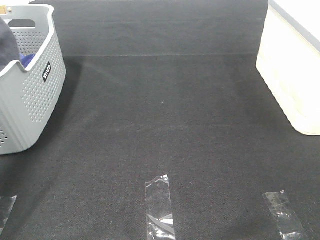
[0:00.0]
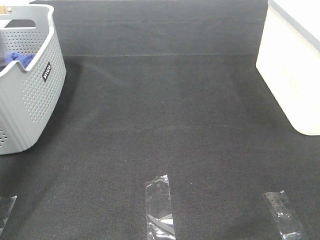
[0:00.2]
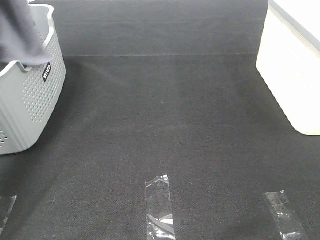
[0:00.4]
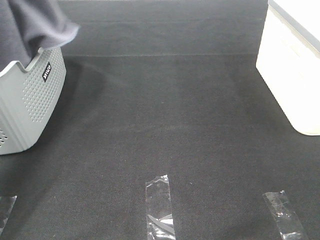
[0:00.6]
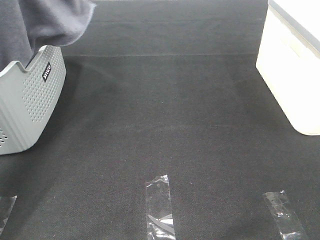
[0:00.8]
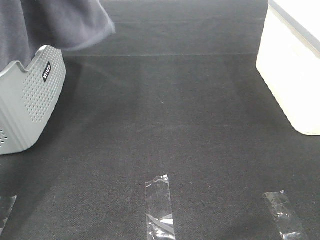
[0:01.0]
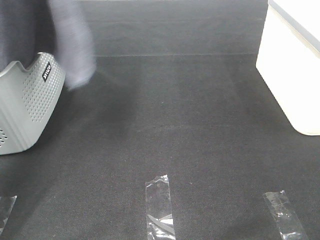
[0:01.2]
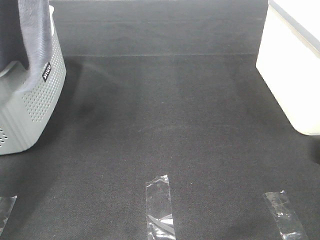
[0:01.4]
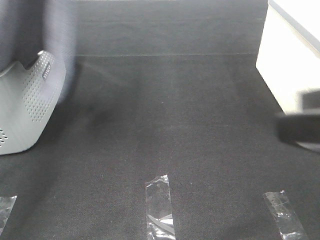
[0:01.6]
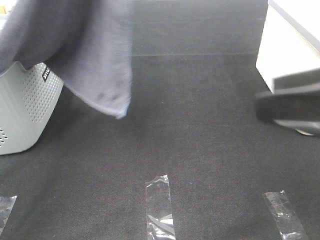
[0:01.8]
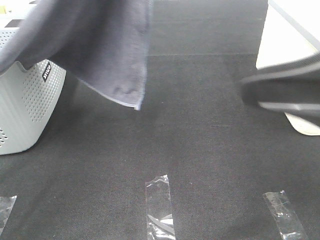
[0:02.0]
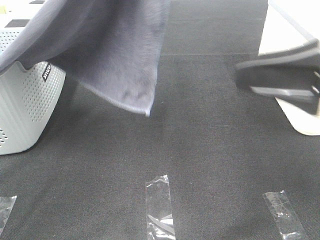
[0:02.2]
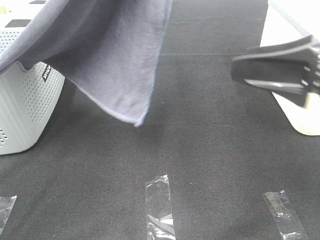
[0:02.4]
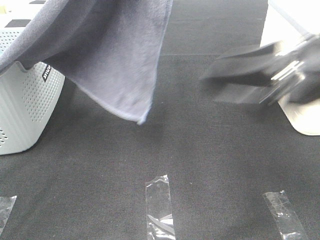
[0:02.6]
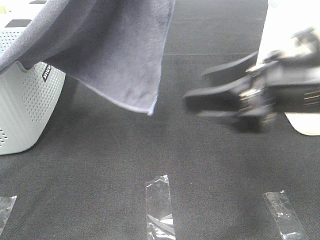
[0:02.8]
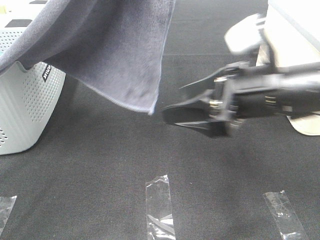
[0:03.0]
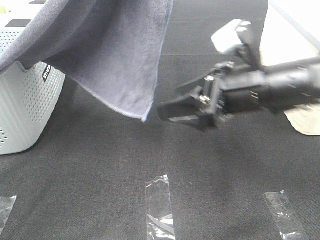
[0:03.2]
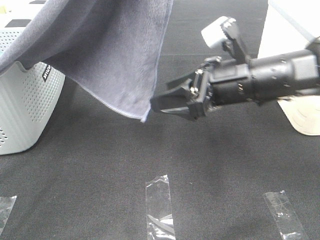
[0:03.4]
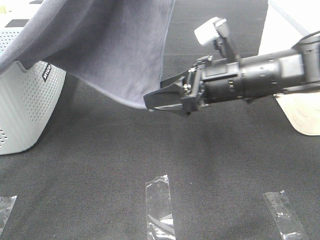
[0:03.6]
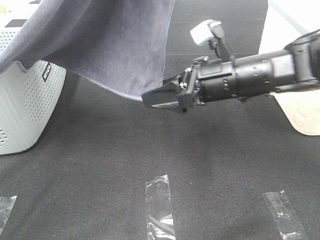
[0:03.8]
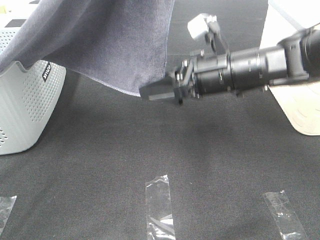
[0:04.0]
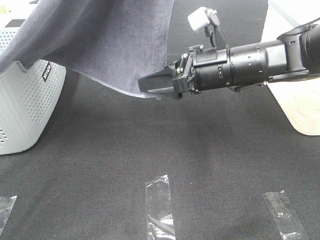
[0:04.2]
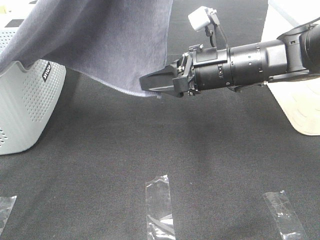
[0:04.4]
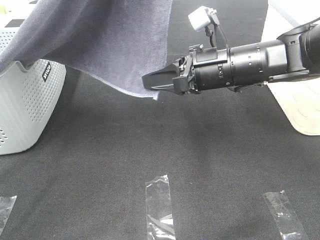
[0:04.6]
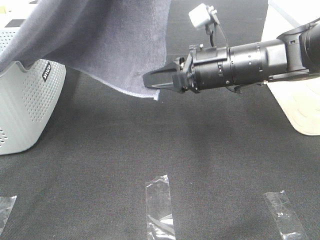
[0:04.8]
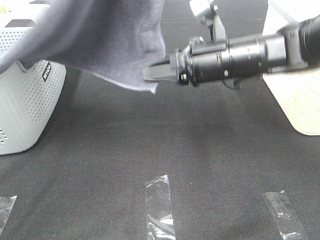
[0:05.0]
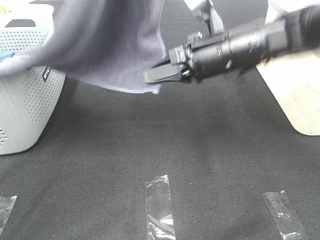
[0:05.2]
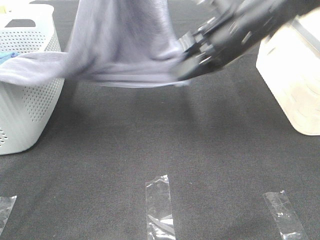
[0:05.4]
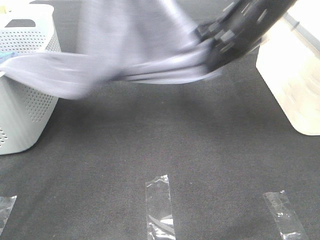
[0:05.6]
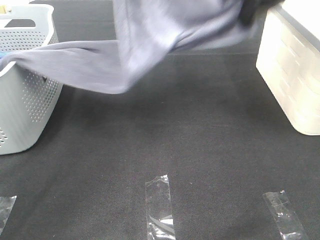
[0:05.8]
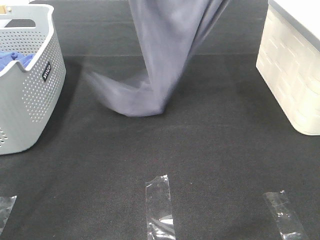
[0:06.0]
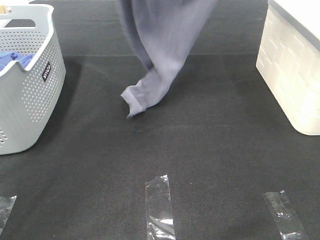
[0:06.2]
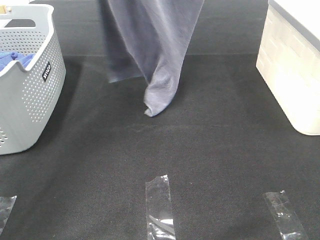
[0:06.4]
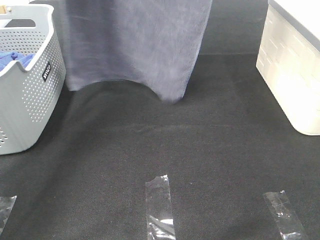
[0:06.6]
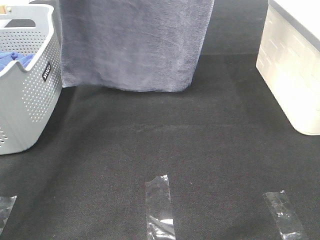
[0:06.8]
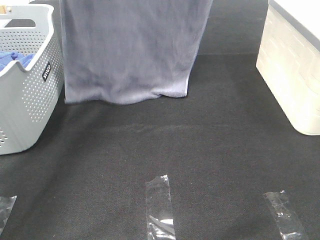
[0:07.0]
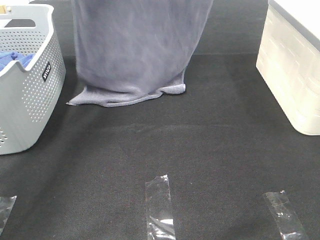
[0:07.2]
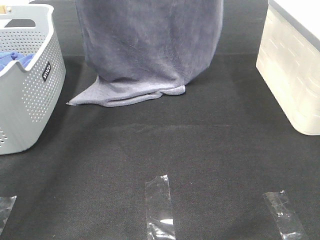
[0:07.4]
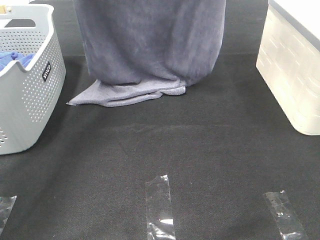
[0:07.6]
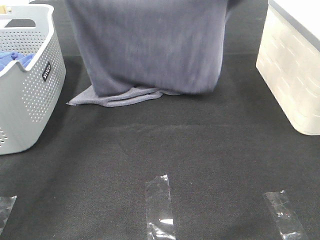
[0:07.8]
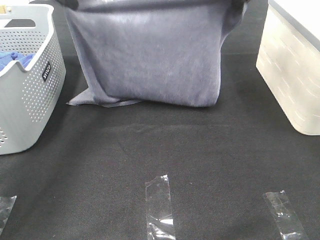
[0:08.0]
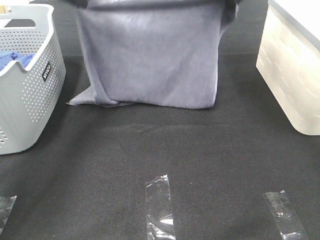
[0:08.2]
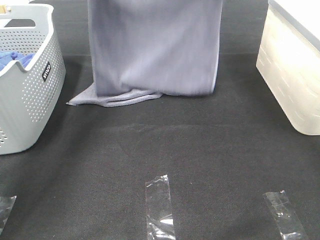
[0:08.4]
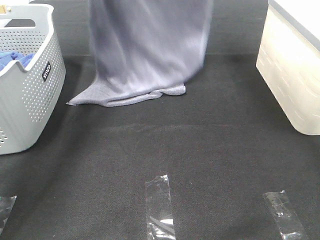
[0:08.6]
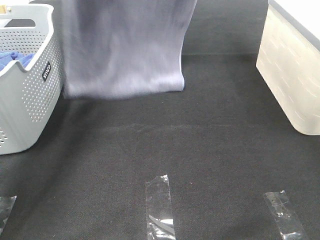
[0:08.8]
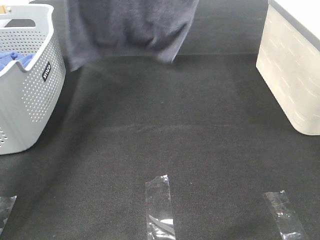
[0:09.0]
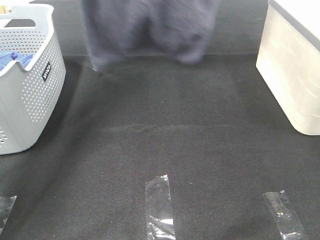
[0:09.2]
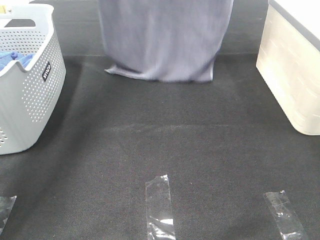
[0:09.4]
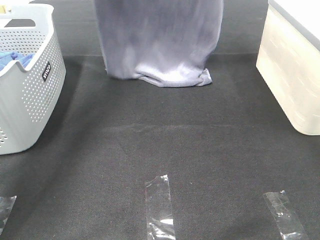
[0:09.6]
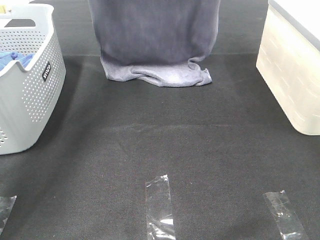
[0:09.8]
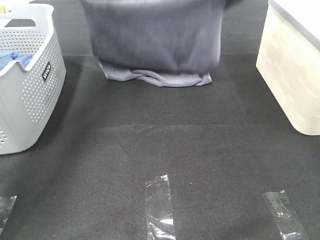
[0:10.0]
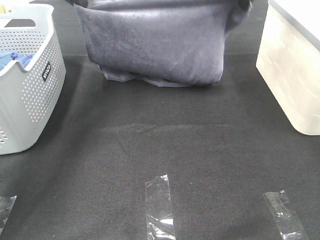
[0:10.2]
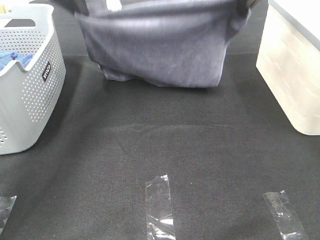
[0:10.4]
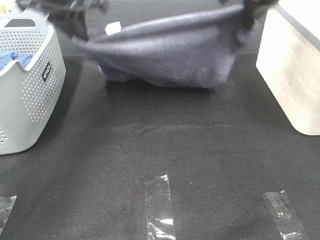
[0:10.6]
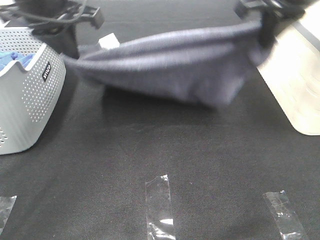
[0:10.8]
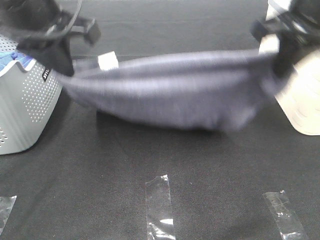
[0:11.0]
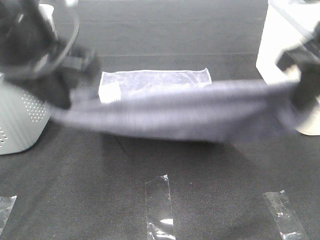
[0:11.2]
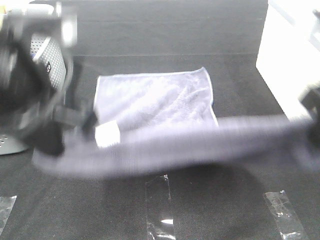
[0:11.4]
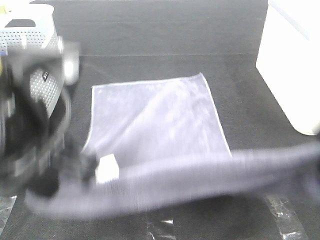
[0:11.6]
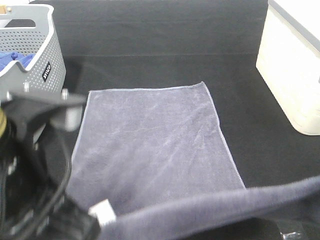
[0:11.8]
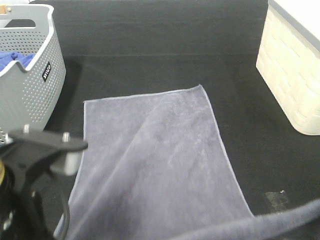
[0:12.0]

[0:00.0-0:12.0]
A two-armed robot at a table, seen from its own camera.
Task of the whole recording: Remove the towel and place it.
Step, 0:00.6 to 0:03.8: Right hand: grab a corner of the grey towel and straighten it.
Step, 0:04.0 to 0:08.4: Left hand: spread the grey towel flat on the table.
Step, 0:04.0 to 0:08.4: Right hand: spread the grey towel flat on the table.
0:00.0 to 0:01.6: The right gripper travels forward and to the left by roughly 15 cm, while the left gripper shifts roughly 20 cm to the right, backward and upward.
0:01.6 to 0:03.0: The left gripper shifts roughly 10 cm to the right; the right gripper shifts some 20 cm forward, downward and to the left.
0:03.0 to 0:04.4: The right gripper goes about 5 cm forward, and closes up.
0:04.4 to 0:06.0: The left gripper is displaced forward and downward by approximately 15 cm; the right gripper travels upward by about 25 cm, and closes up.
0:06.0 to 0:07.6: The right gripper goes upward and returns, roughly 10 cm each way. The left gripper shifts some 10 cm to the left.
0:07.6 to 0:09.0: Both grippers move upward and forward, approximately 10 cm.
0:09.0 to 0:10.4: Both grippers move downward, some 15 cm.
0:10.4 to 0:12.0: The two grippers go roughly 35 cm backward.

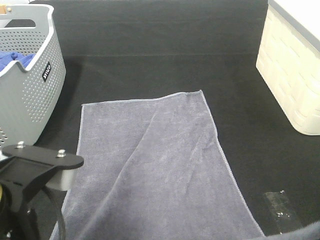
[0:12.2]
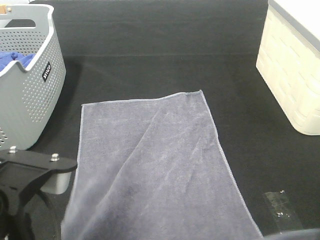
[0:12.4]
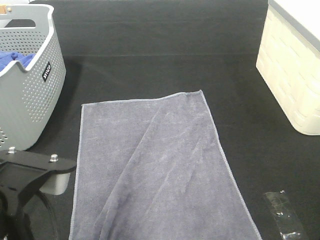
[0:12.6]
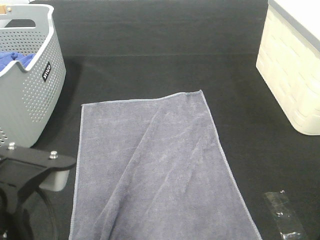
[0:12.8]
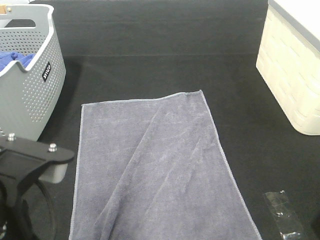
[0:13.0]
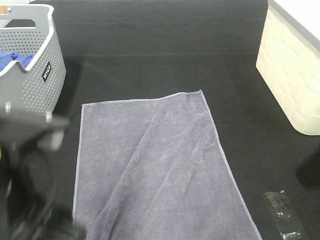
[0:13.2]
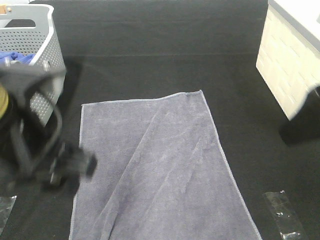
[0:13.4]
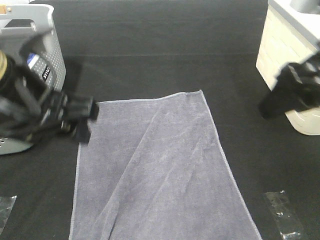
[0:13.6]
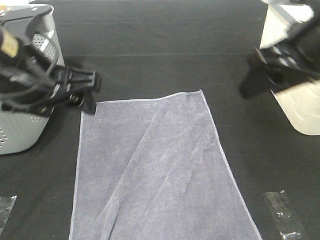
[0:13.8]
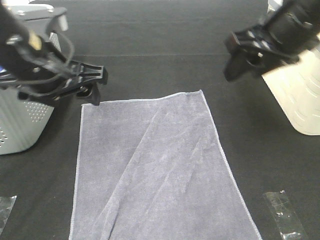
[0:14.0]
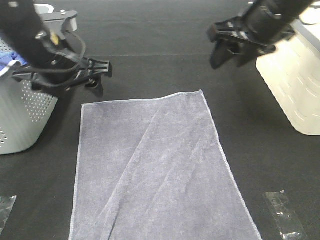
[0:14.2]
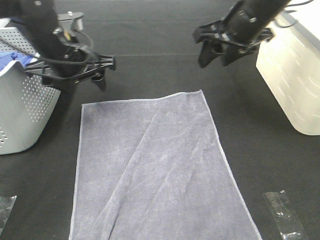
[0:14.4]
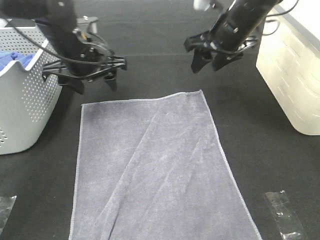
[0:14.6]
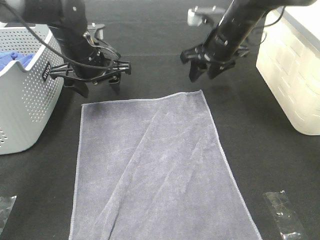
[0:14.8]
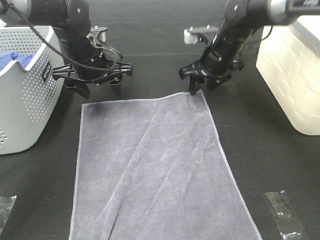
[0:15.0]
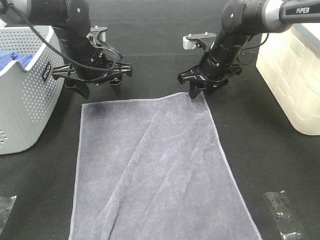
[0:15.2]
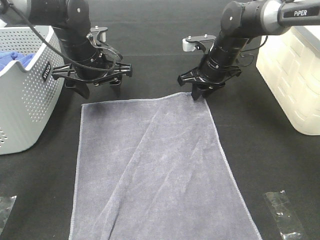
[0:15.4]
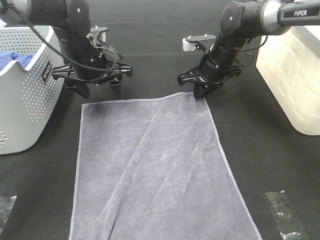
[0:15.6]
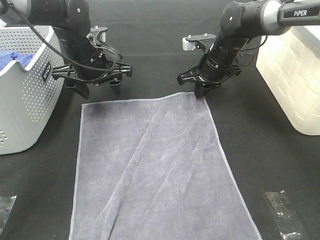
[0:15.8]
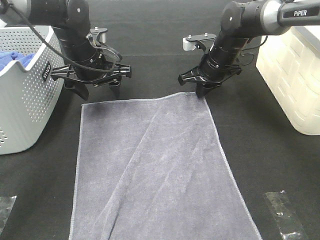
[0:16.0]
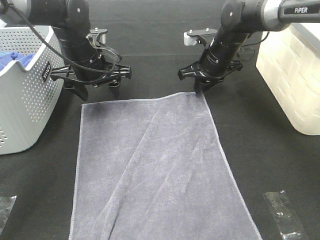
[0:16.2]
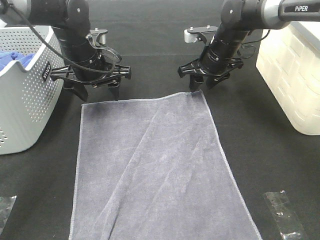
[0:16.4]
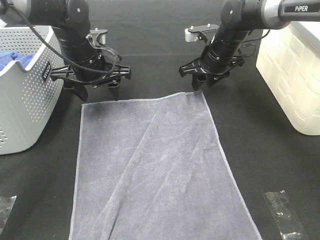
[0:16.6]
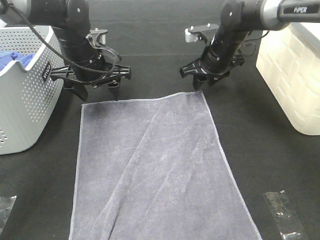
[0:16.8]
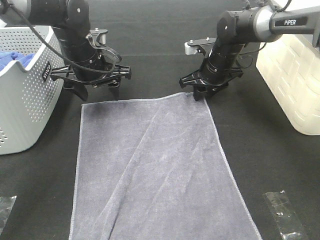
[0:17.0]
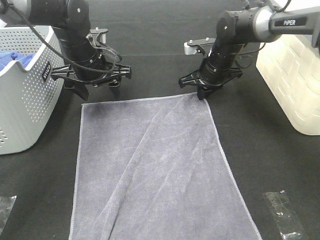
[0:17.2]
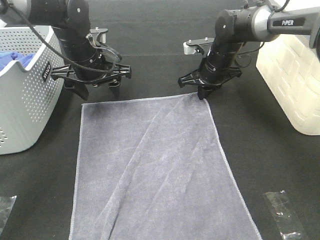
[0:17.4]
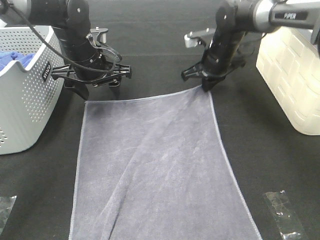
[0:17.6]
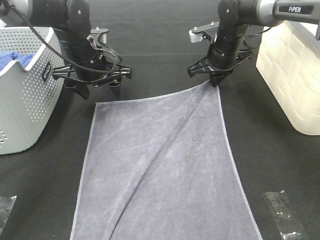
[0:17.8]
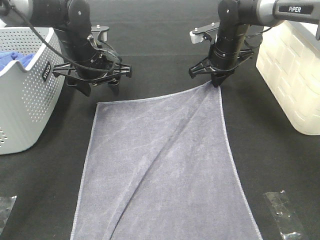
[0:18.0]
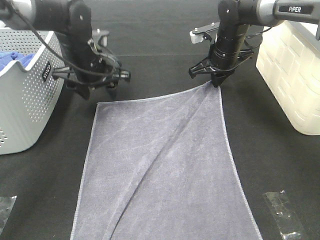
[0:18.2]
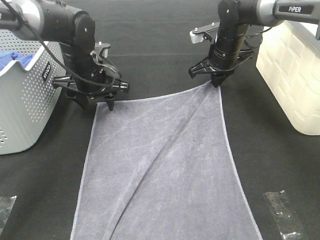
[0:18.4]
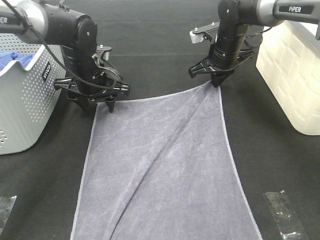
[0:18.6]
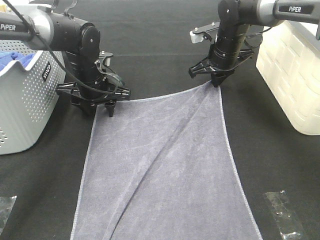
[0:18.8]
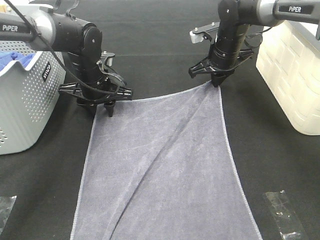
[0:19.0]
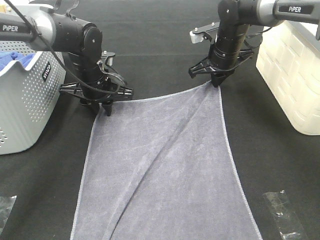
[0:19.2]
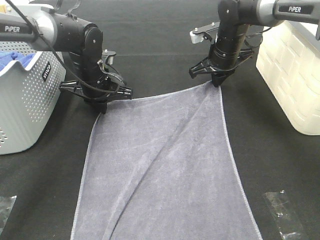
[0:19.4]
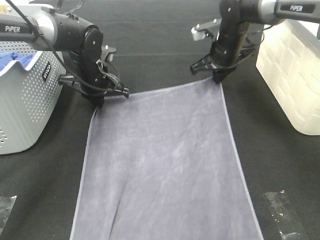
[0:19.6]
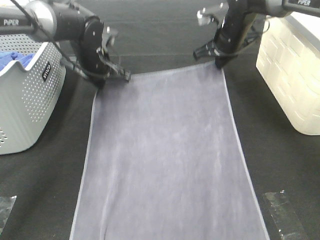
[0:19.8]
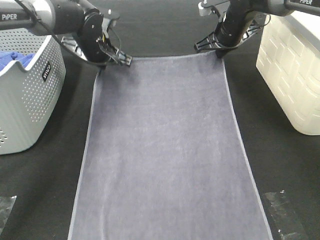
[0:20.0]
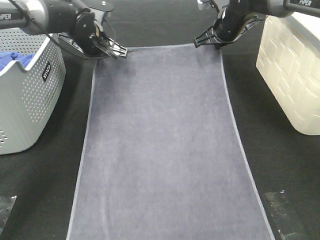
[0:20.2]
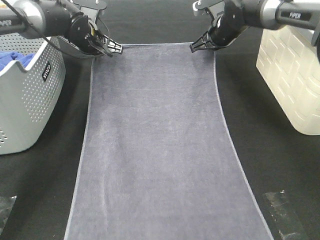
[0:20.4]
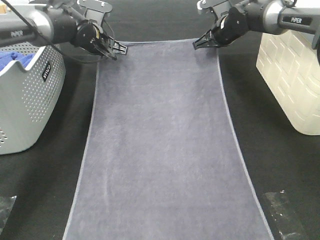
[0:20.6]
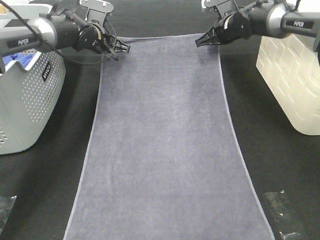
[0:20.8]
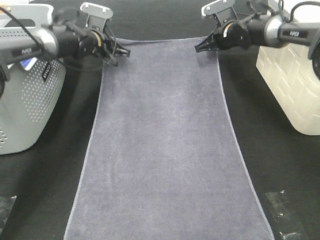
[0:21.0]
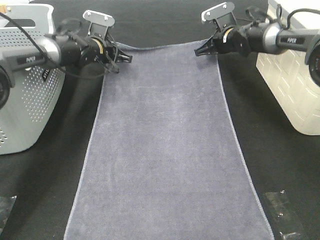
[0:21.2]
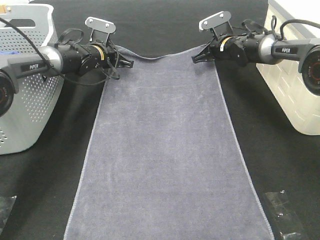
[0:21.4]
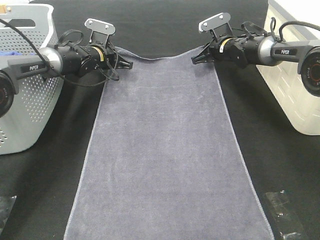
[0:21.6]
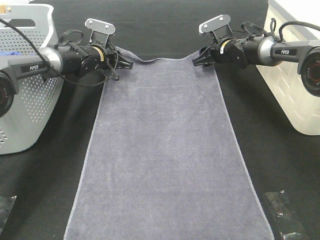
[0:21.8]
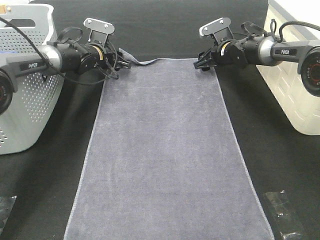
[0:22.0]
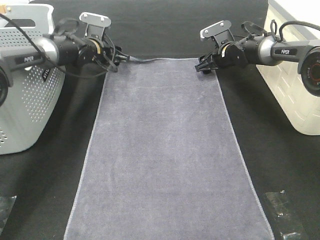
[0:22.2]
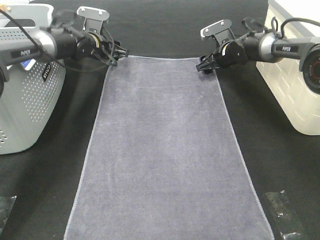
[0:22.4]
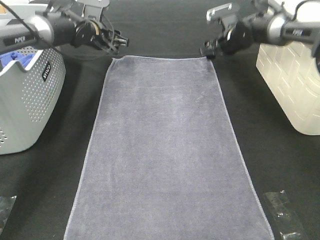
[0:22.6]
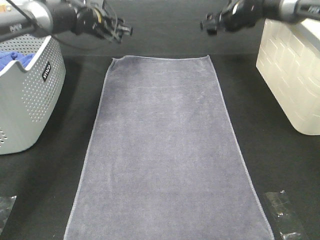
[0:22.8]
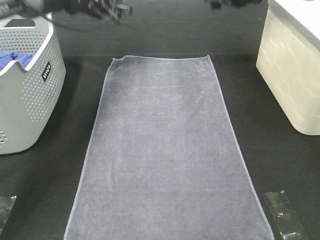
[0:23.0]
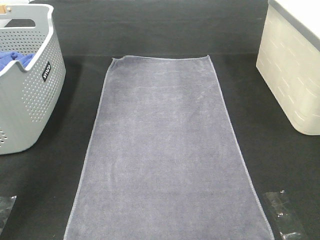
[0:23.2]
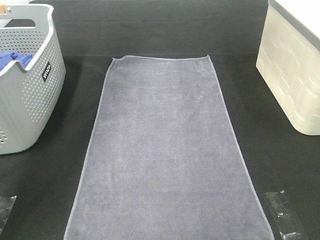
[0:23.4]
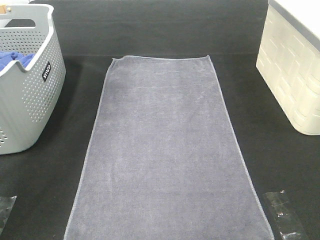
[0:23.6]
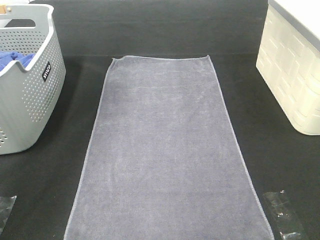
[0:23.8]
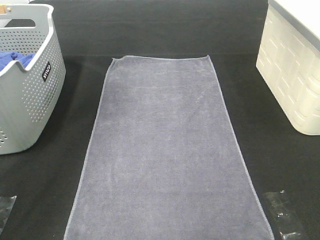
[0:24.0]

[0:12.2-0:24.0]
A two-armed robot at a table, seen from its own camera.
Task of the whole recording: Remove the towel and place it.
Step, 0:12.2 to 0:16.2: Left hand:adjust the gray towel.
Step, 0:12.2 to 0:16.2: Right hand:adjust the gray towel.
0:12.2 to 0:13.6: Both grippers move forward, roughly 10 cm. The right gripper opens up. The left gripper opens.
0:13.6 to 0:15.2: The grippers both shift forward and downward by approximately 30 cm.
0:15.2 to 0:16.6: The right gripper closes, then opens again.
0:16.6 to 0:18.2: The right gripper closes.
0:18.2 to 0:19.6: The left gripper closes its fingers.
0:19.6 to 0:21.0: The grippers both shift forward by approximately 10 cm.
0:21.0 to 0:22.6: The left gripper opens its fingers; the right gripper opens its fingers.
0:22.6 to 0:24.0: The two grippers go about 30 cm upward and backward.
